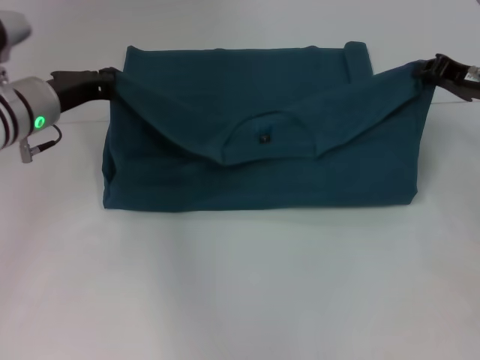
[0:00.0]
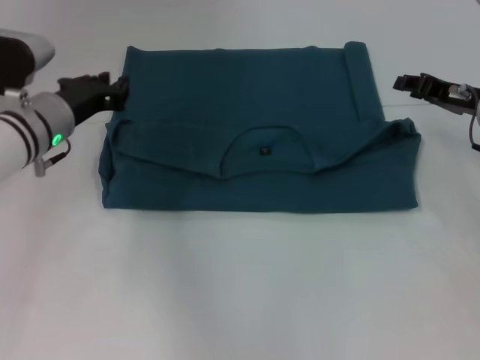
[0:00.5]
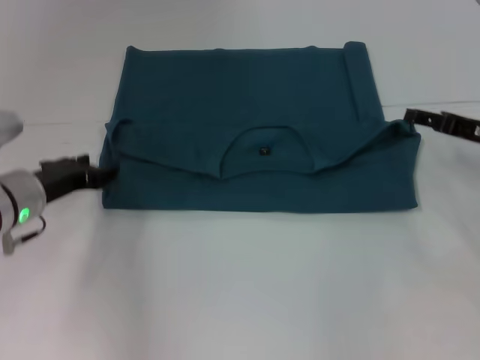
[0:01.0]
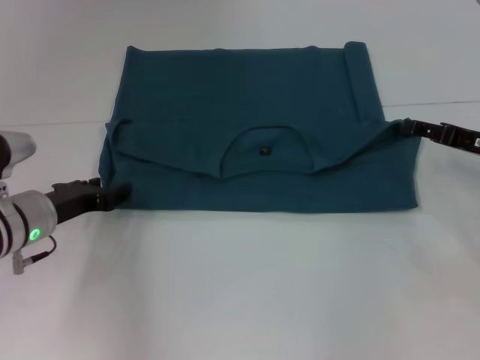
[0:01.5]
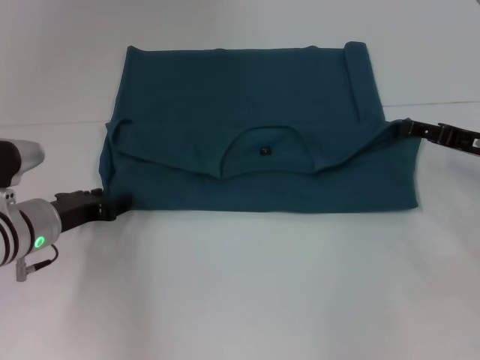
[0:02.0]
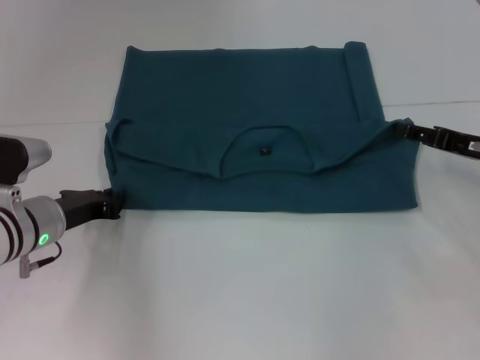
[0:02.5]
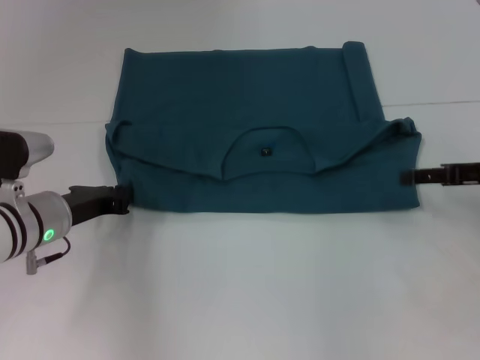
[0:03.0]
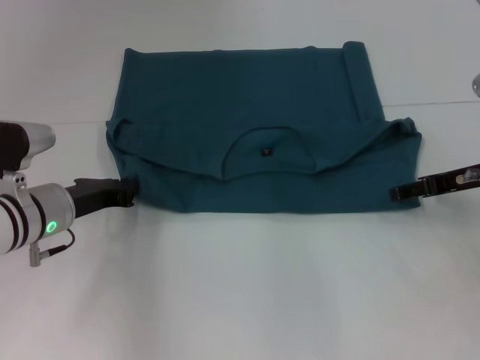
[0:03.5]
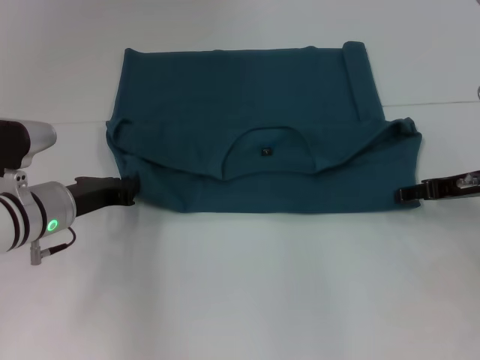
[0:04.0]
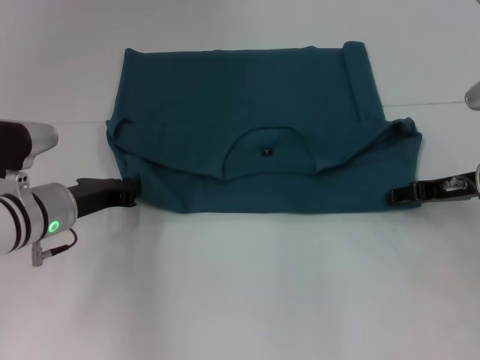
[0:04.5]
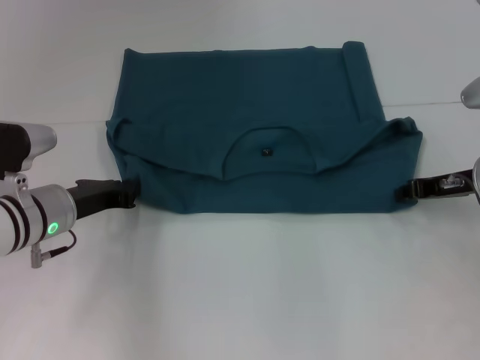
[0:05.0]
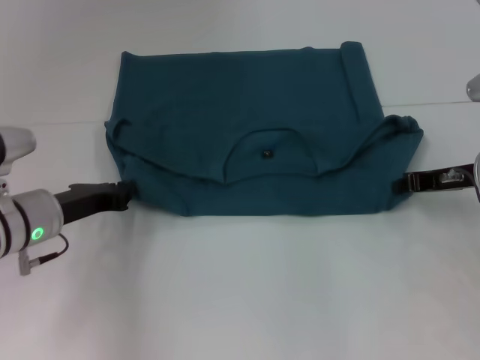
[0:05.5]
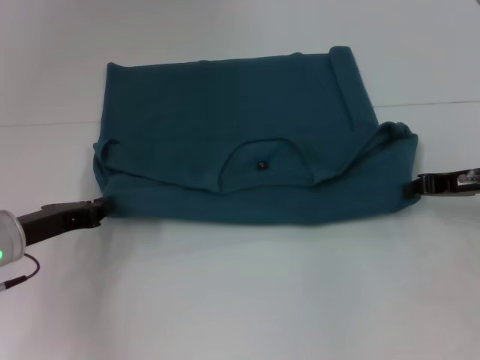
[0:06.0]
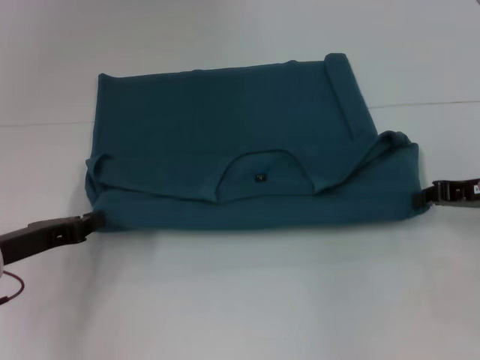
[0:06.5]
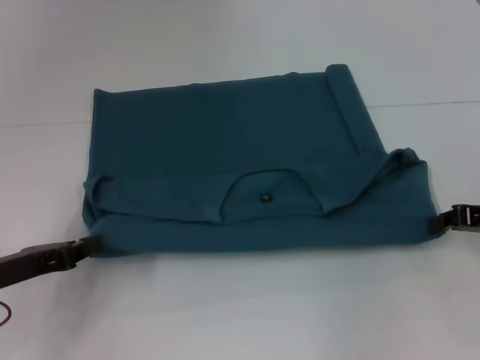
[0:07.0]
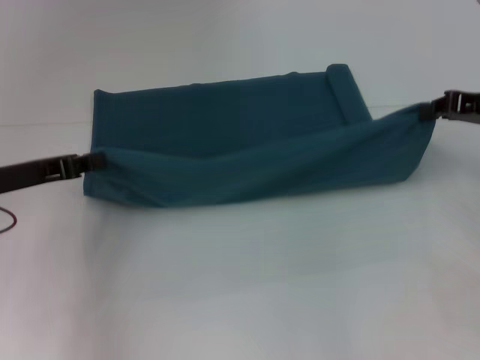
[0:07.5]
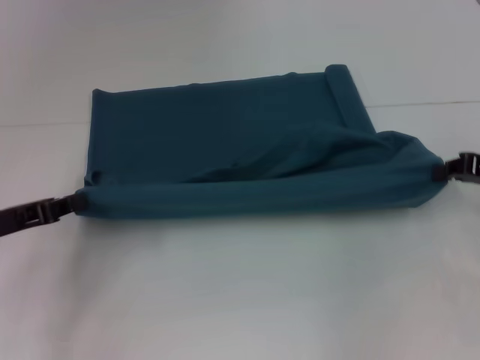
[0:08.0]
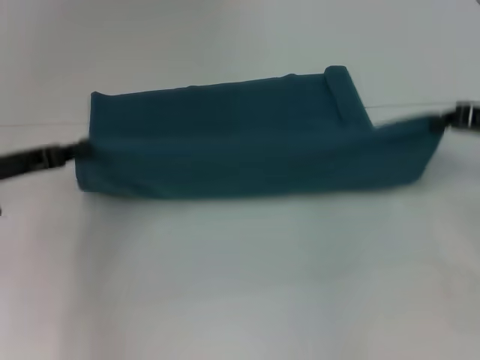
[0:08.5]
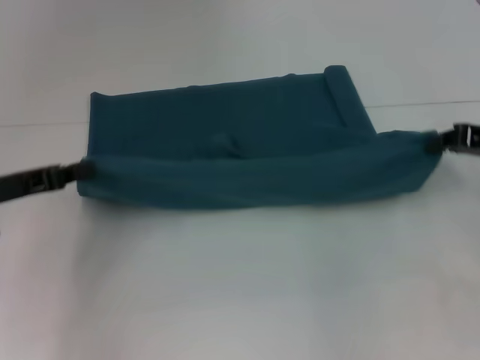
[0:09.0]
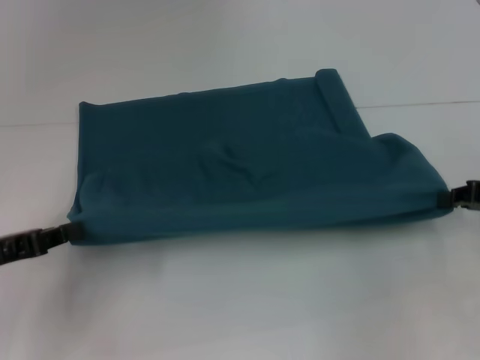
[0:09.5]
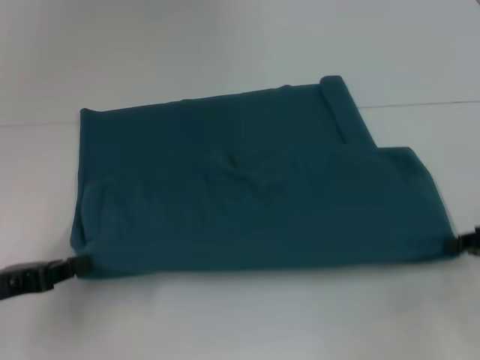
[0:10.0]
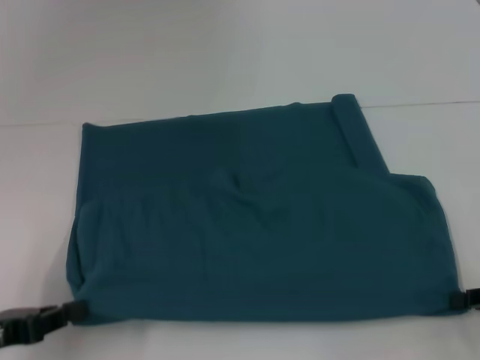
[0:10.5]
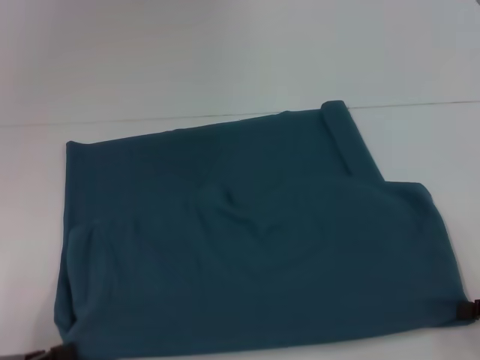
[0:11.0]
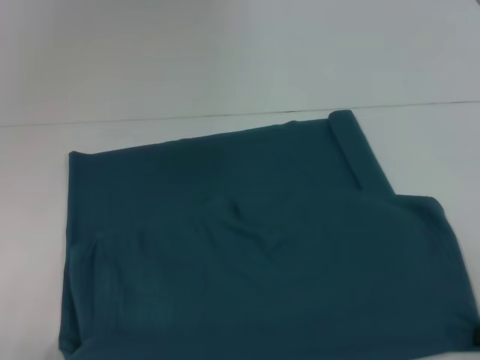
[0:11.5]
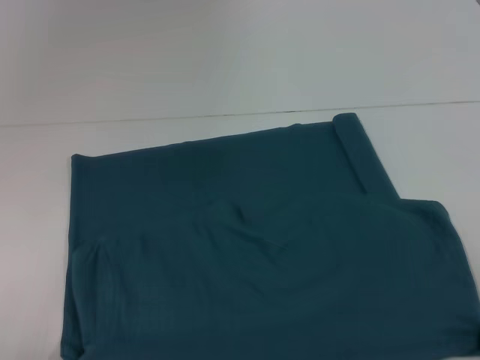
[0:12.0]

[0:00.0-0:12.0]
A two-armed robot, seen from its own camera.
Step, 1.0 to 11.5 s: Pull the clothes with your left hand.
Step, 1.0 to 11.5 s: Pull the clothes with your right hand.
0.0 to 2.0 s: The right gripper is displaced backward by roughly 5 cm, and opens. Meanwhile the left gripper is displaced downward and backward by roughly 10 cm, and opens its fingers.
2.0 to 4.0 s: The left gripper closes.
4.0 to 6.0 s: The right gripper closes up. The left gripper changes place by some 5 cm.
6.0 to 8.0 s: The left gripper moves forward and backward over roughly 5 cm, changing direction 2 times. Meanwhile the right gripper moves approximately 5 cm.
8.0 to 10.0 s: The left gripper ends up roughly 5 cm from where it was; the right gripper shifts some 5 cm backward.
10.0 to 12.0 s: The two grippers go some 10 cm backward.

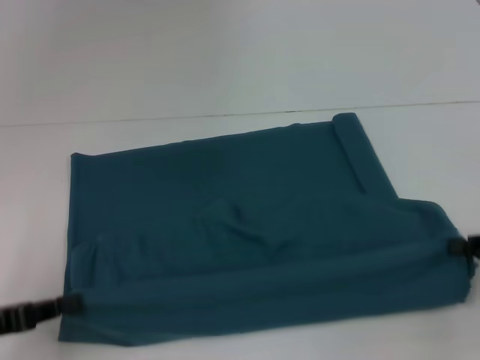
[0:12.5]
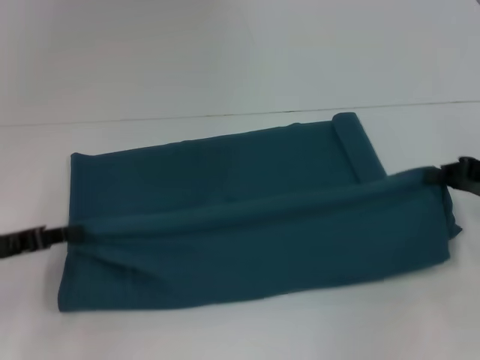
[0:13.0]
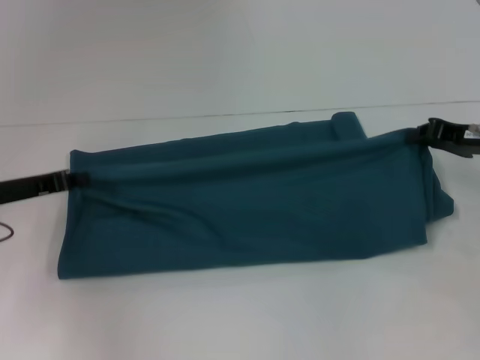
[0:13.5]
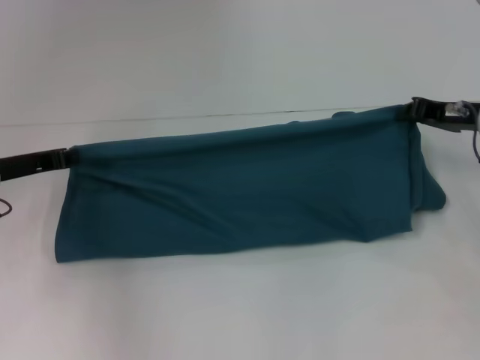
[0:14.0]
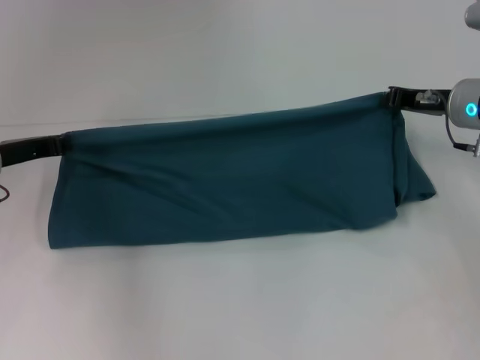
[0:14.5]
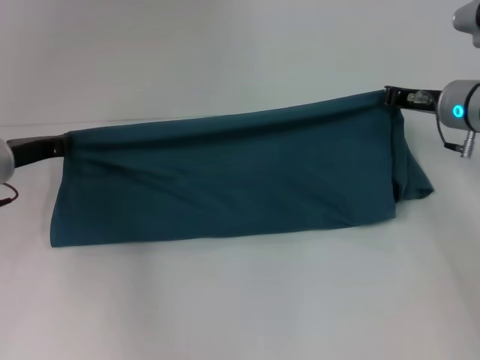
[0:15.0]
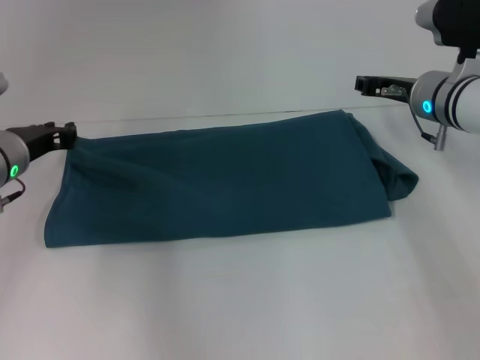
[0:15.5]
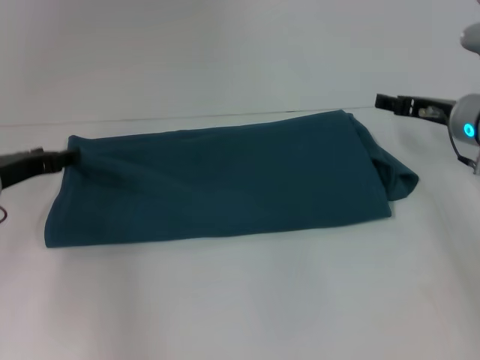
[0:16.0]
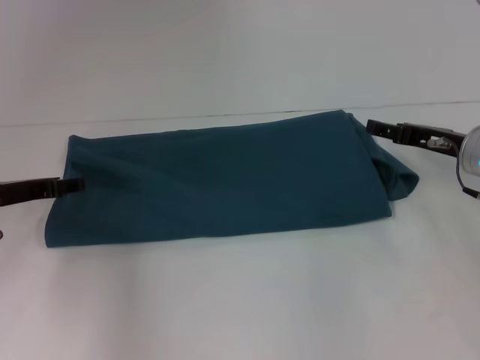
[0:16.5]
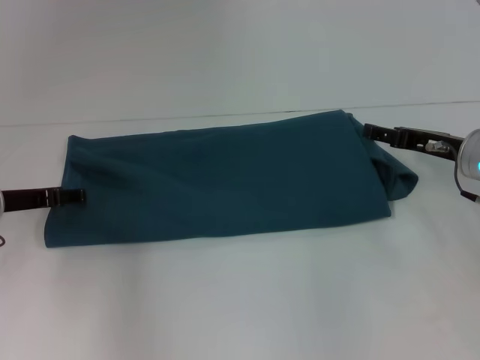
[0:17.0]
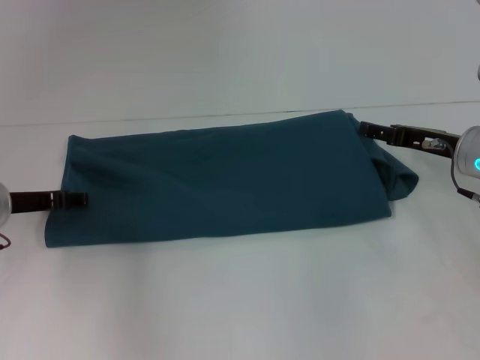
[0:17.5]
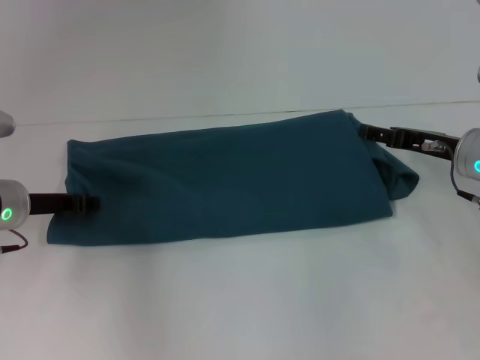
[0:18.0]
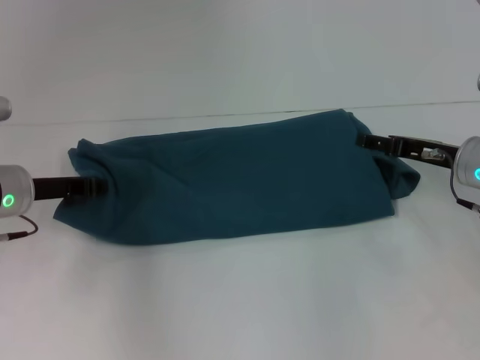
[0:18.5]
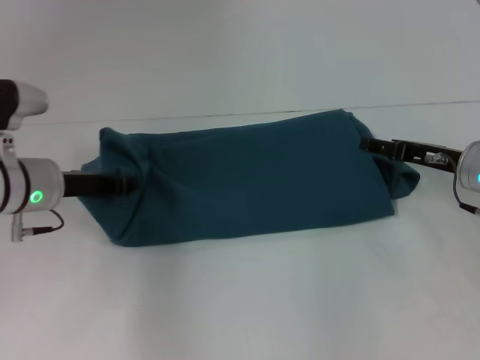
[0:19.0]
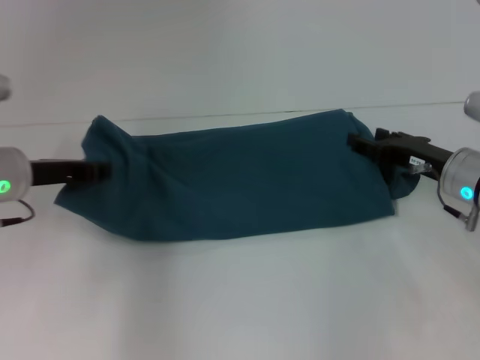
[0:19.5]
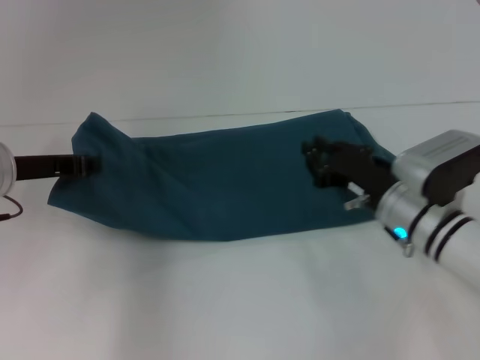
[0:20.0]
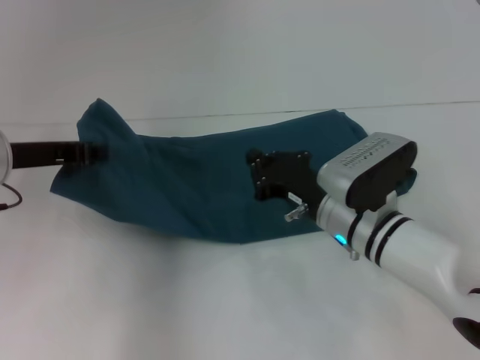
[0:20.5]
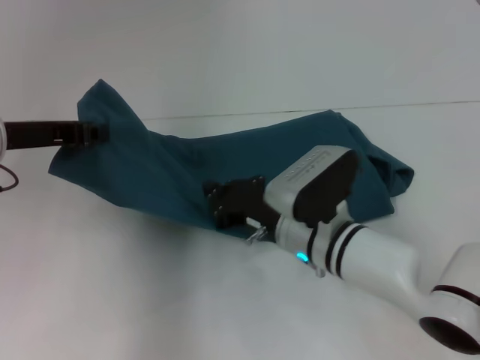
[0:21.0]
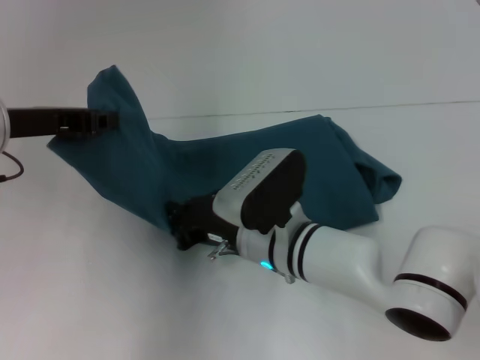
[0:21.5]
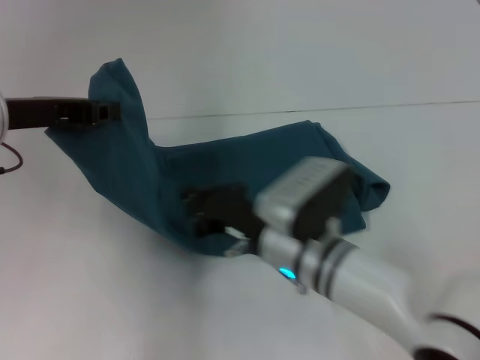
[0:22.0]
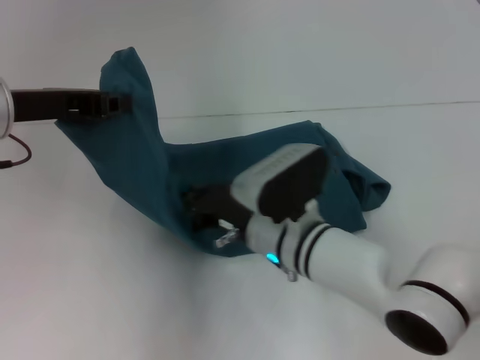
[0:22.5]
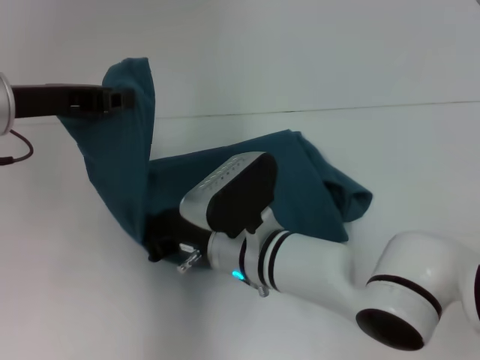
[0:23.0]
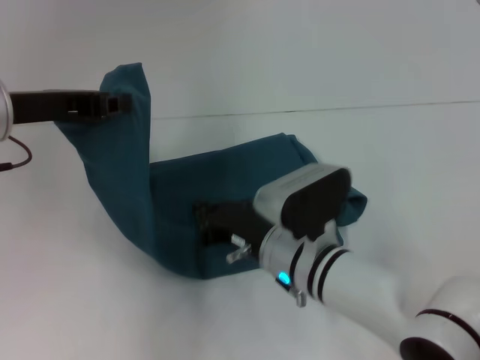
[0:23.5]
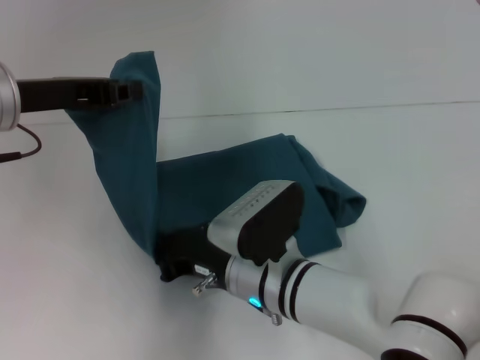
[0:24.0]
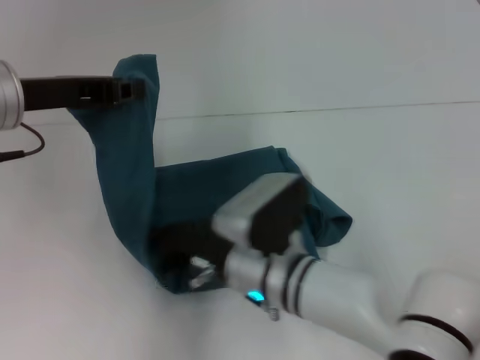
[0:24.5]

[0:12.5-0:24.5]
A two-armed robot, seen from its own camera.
Step, 12.5 to 15.5 s: Fold the clothes to the left.
Step, 12.5 to 15.5 s: Fold the clothes to the right.
12.5 to 14.5 s: The left gripper heads forward, covering approximately 20 cm. Meanwhile the right gripper heads forward and to the left, covering about 20 cm.
14.5 to 16.5 s: The left gripper opens up. Meanwhile the right gripper shifts by some 5 cm, and opens.
16.5 to 18.5 s: The left gripper closes.
18.5 to 20.5 s: The right gripper heads to the left, covering roughly 15 cm, and closes up, while the left gripper is displaced upward by approximately 5 cm.
20.5 to 22.5 s: The right gripper shifts approximately 10 cm to the left, while the left gripper is displaced upward by approximately 5 cm.

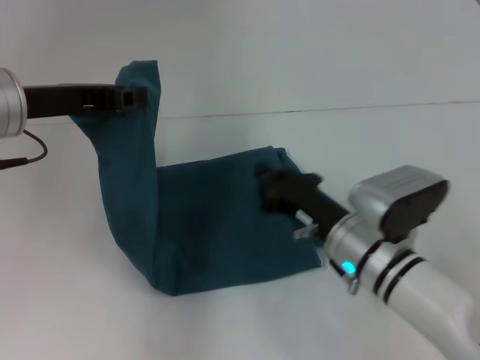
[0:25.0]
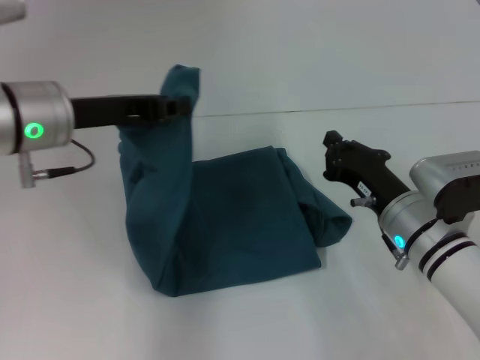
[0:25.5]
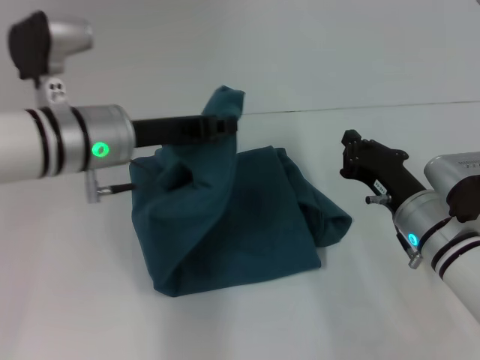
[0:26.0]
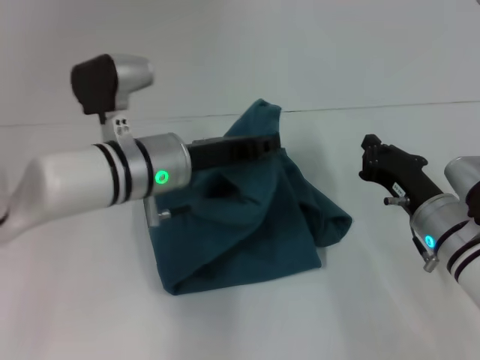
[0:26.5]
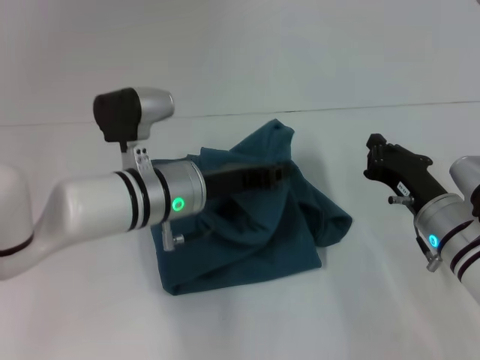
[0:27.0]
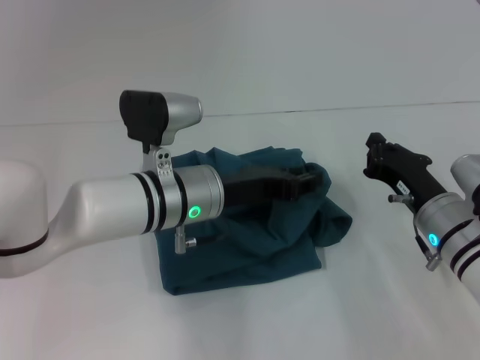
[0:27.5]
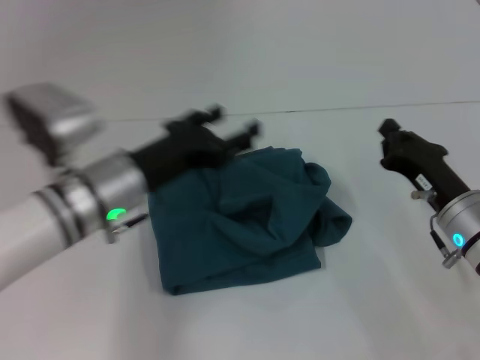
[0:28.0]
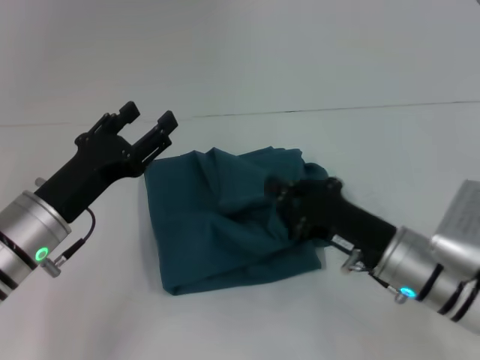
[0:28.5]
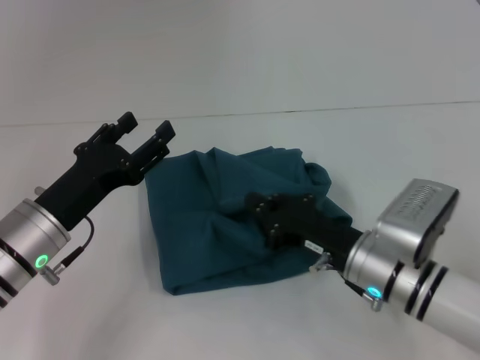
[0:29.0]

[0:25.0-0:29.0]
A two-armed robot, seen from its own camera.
Step, 25.0 to 27.5 s: Fold the clothes to the left.
25.0 to 27.0 s: The right gripper travels to the right by some 10 cm. Meanwhile the left gripper is displaced to the right and downward by about 20 cm.
27.0 to 29.0 s: The right gripper shifts some 5 cm to the left. The left gripper is displaced to the left and backward by some 15 cm, and opens its fingers.
